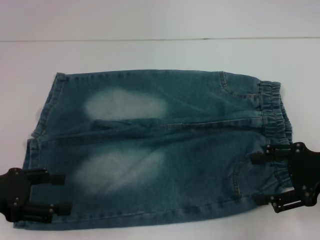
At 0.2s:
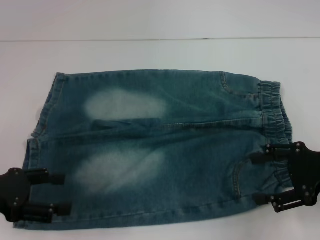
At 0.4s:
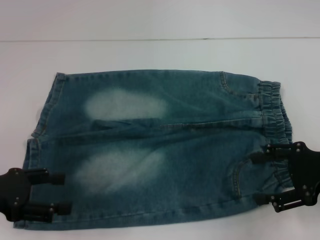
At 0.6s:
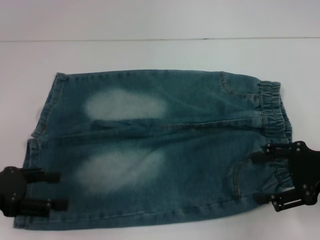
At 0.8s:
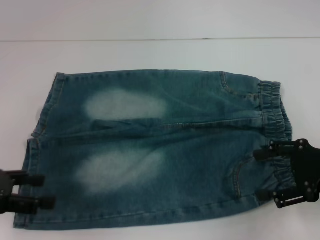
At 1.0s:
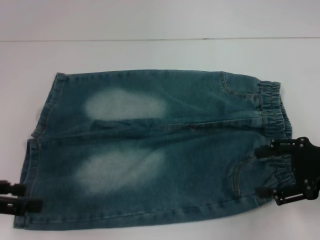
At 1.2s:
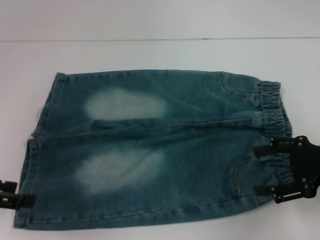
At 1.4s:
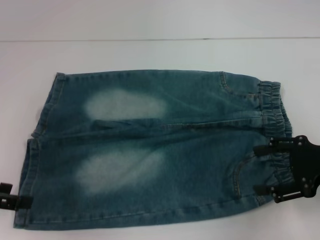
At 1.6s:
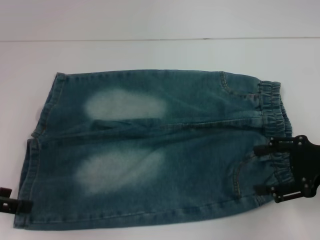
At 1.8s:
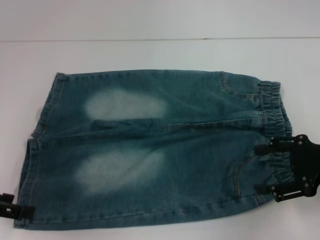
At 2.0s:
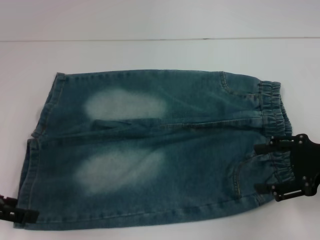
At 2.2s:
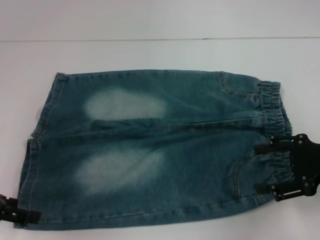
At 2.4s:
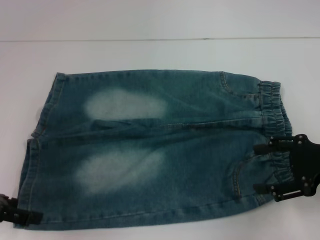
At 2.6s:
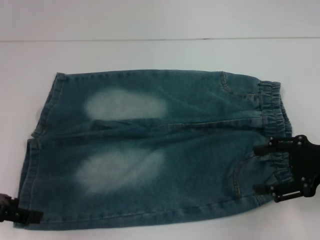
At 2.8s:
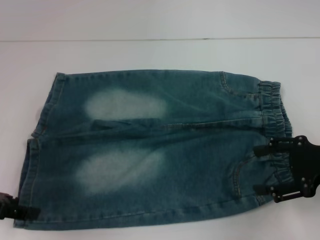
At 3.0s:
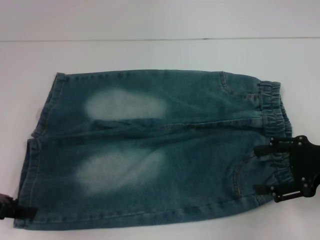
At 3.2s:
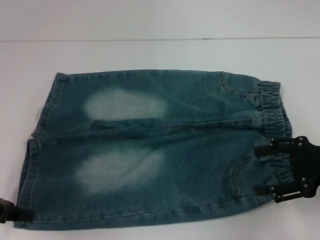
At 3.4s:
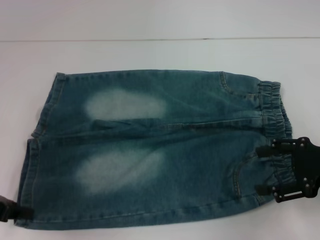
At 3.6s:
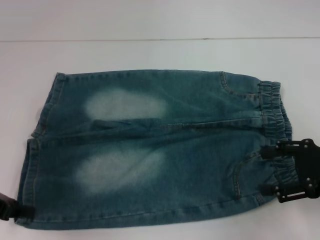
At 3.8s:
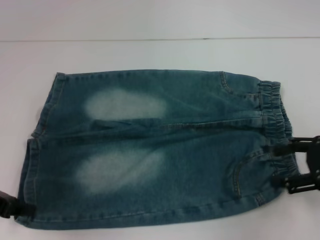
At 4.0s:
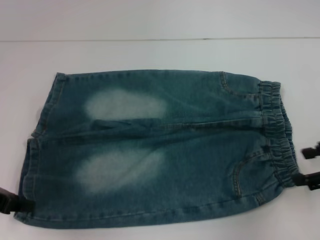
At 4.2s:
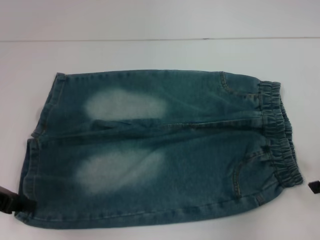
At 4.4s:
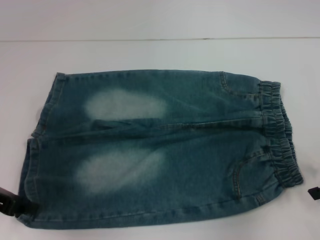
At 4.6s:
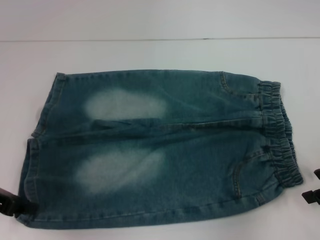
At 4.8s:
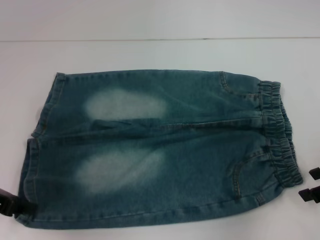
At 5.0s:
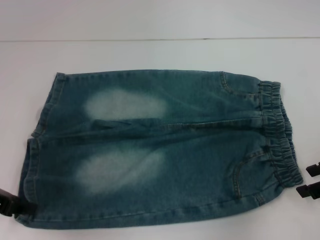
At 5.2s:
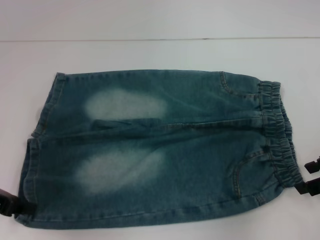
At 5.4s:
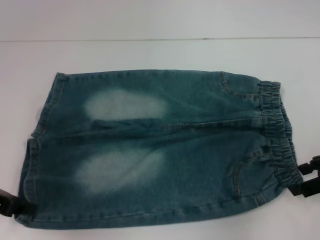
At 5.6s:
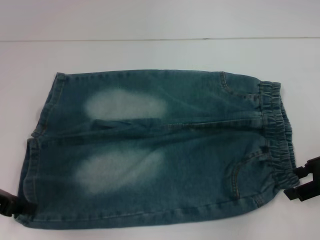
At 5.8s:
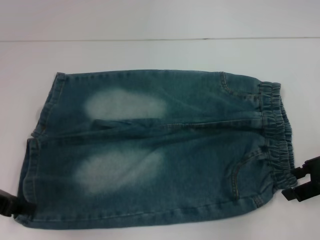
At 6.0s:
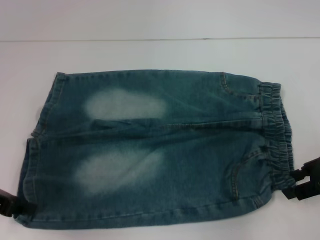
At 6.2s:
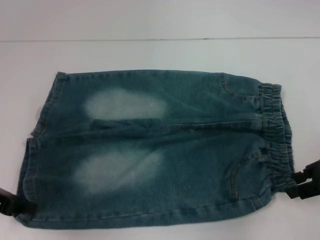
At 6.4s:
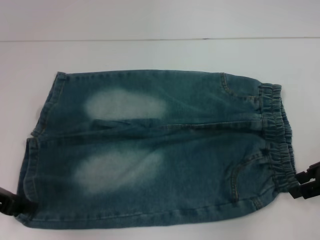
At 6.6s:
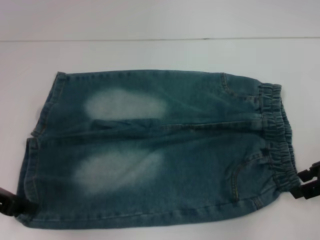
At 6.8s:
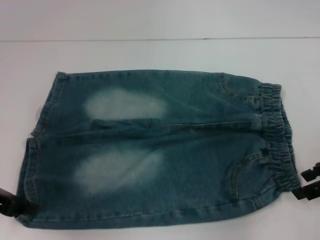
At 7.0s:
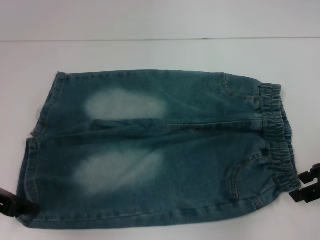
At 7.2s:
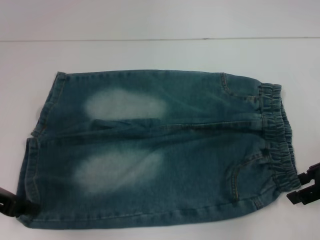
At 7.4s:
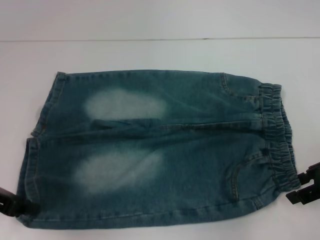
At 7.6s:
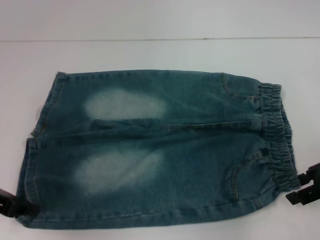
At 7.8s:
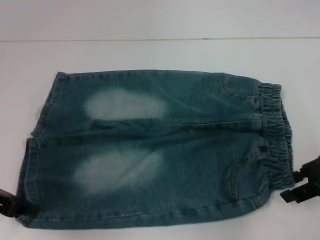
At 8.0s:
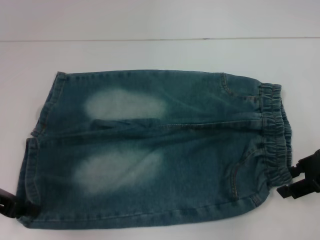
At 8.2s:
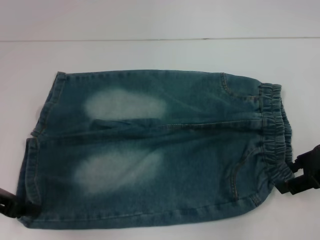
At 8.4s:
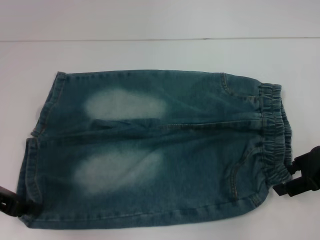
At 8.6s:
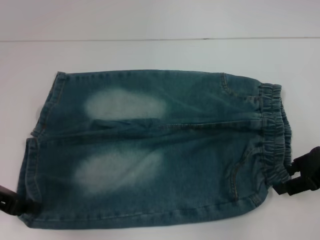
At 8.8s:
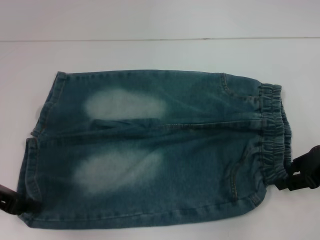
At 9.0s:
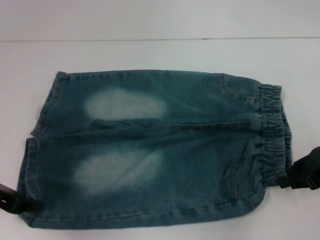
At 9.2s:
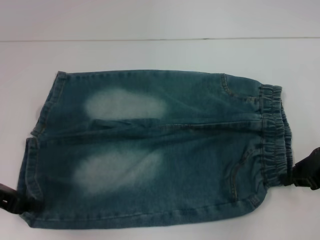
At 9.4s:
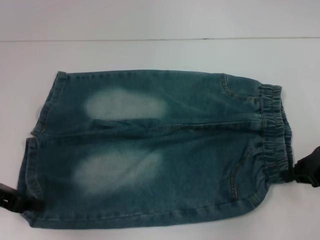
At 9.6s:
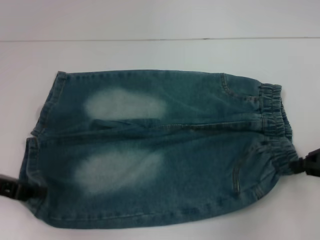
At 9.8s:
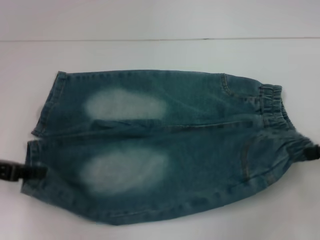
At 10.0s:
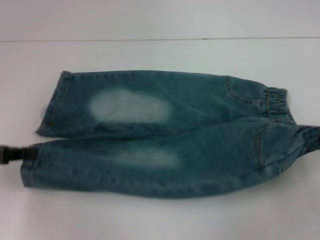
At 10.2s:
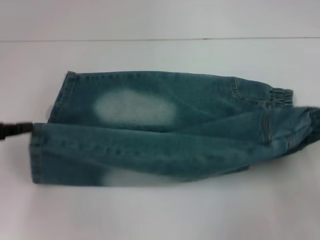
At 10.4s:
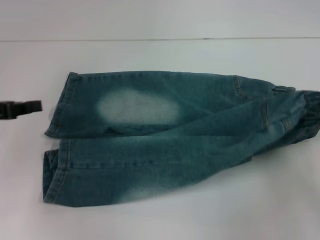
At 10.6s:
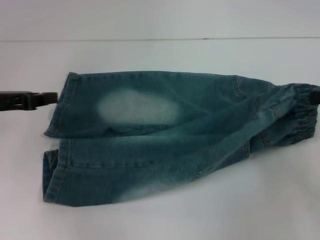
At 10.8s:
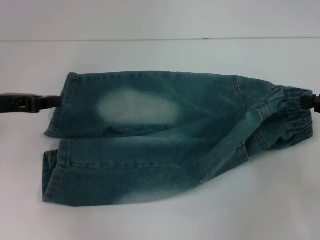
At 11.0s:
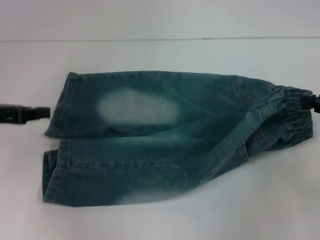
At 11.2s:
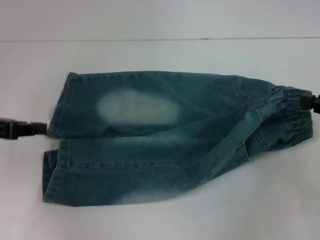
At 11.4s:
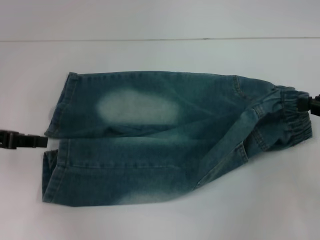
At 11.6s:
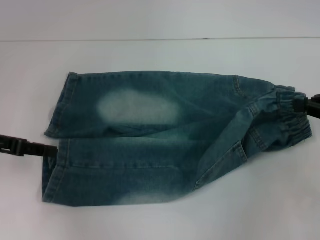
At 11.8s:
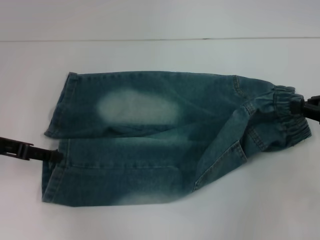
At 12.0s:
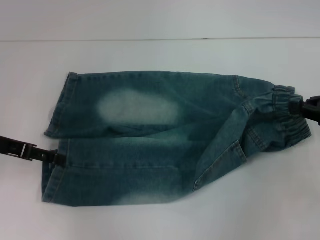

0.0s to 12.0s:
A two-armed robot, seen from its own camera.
Step, 0.0s to 9.2s: Grab the lower left pant leg with your left hand.
3.0s to 4.4s: The left gripper closes its fingers.
4.4s to 6.0s: The grippers stay close to where they were, moving slightly.
6.0s to 7.6s: The two grippers keep their place.
7.6s to 9.0s: The grippers make only small movements.
9.0s to 10.4s: The right gripper goes about 5 cm to the right, and closes its fingers; the left gripper shifts by about 5 cm.
10.4s to 12.0s: The left gripper opens up.

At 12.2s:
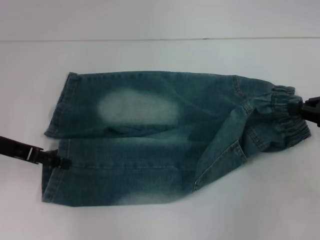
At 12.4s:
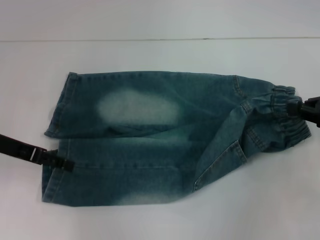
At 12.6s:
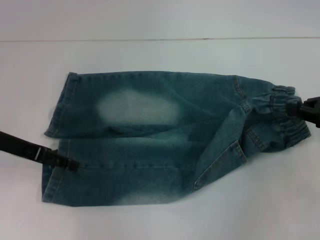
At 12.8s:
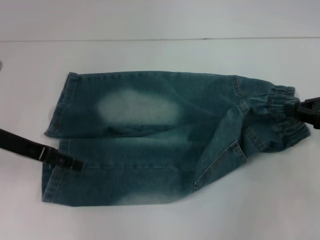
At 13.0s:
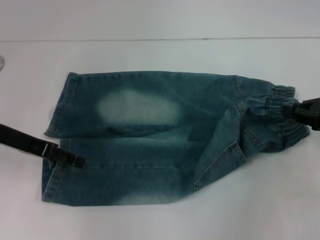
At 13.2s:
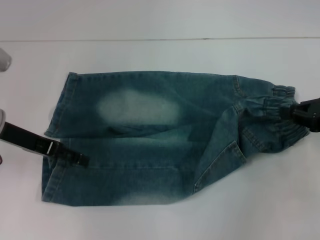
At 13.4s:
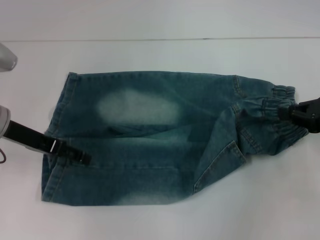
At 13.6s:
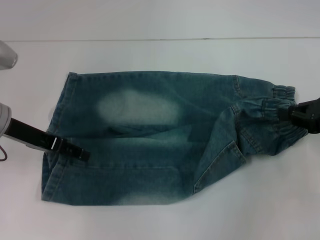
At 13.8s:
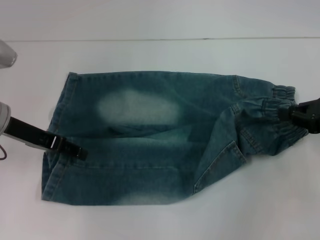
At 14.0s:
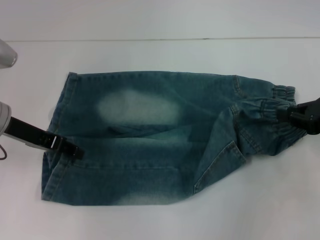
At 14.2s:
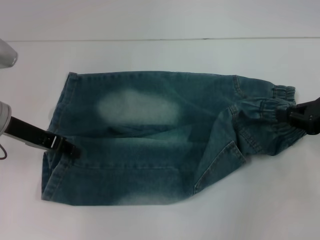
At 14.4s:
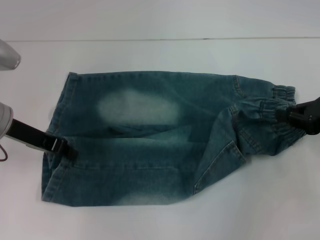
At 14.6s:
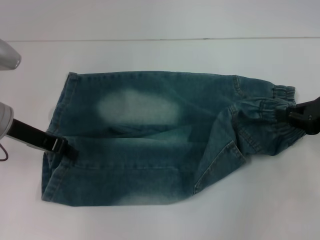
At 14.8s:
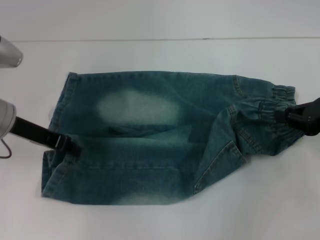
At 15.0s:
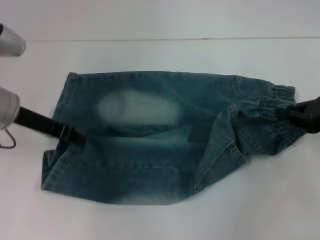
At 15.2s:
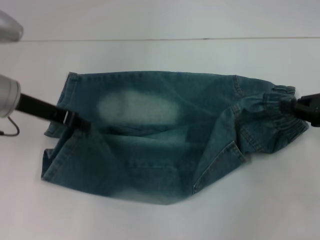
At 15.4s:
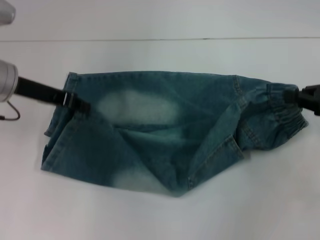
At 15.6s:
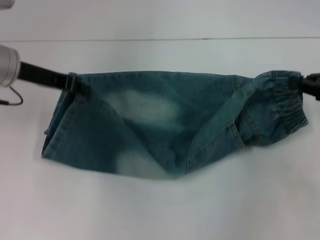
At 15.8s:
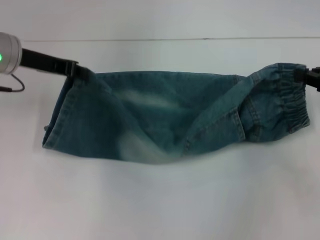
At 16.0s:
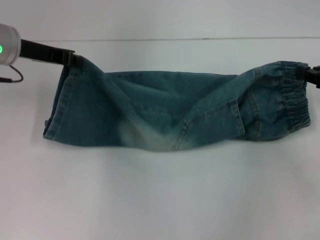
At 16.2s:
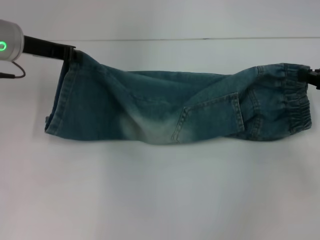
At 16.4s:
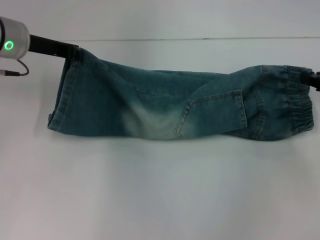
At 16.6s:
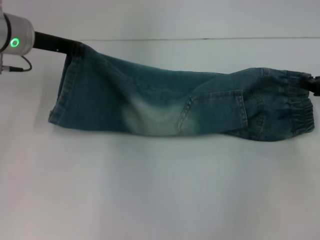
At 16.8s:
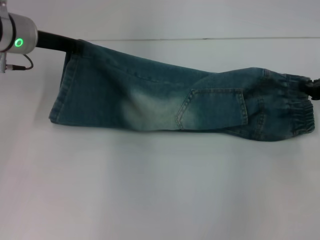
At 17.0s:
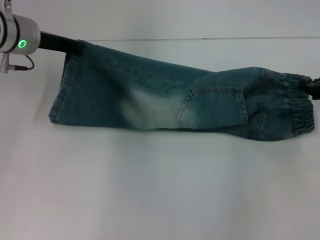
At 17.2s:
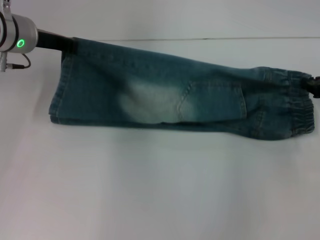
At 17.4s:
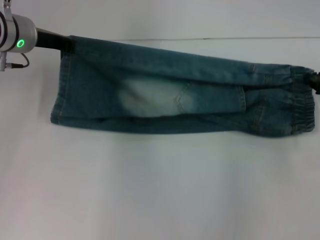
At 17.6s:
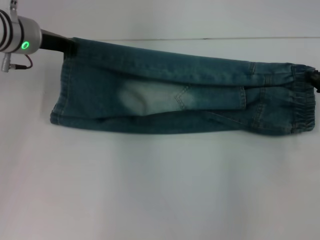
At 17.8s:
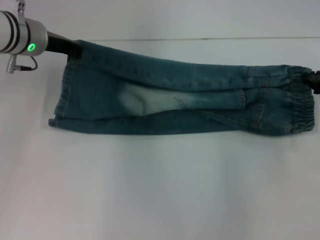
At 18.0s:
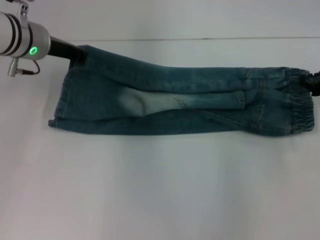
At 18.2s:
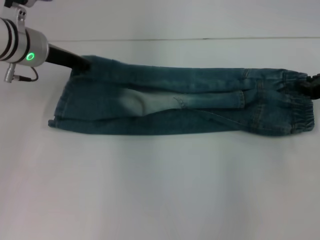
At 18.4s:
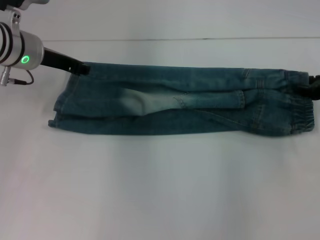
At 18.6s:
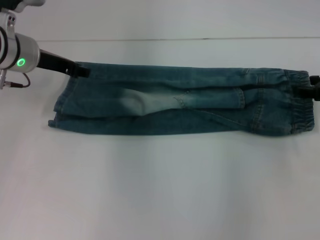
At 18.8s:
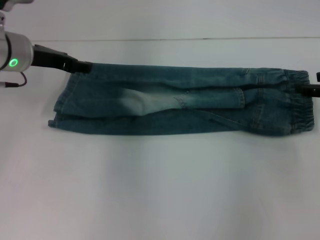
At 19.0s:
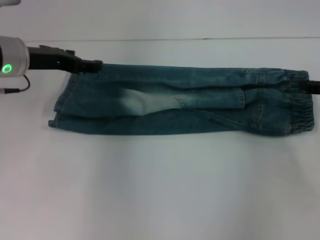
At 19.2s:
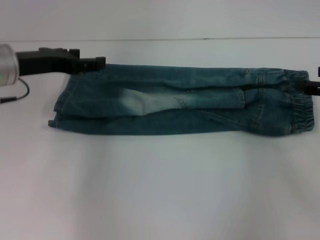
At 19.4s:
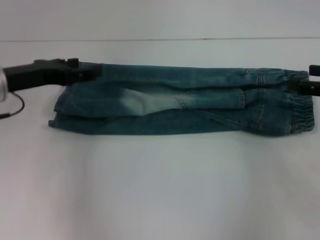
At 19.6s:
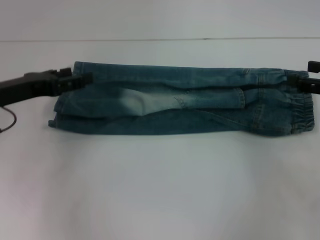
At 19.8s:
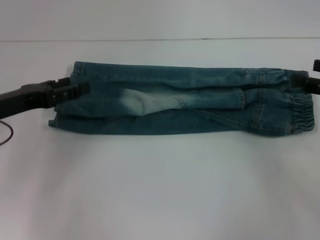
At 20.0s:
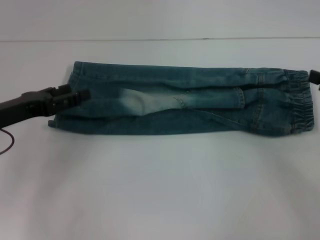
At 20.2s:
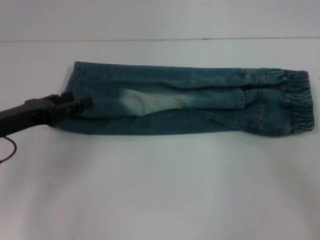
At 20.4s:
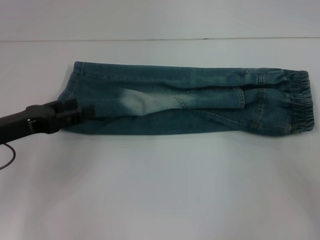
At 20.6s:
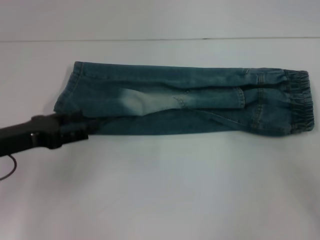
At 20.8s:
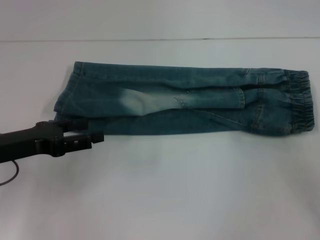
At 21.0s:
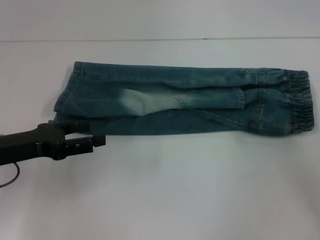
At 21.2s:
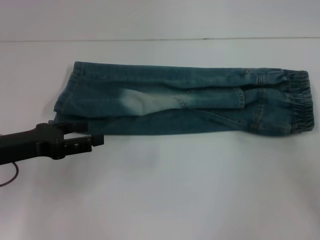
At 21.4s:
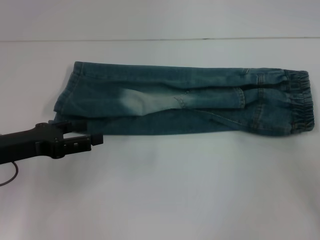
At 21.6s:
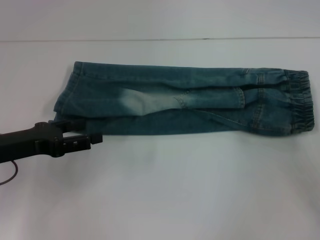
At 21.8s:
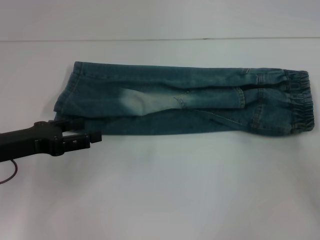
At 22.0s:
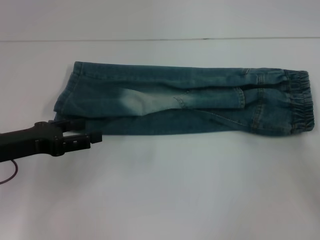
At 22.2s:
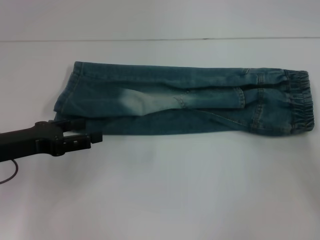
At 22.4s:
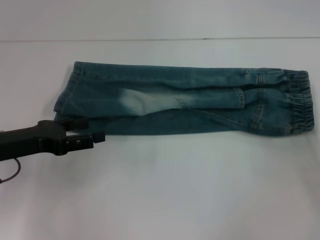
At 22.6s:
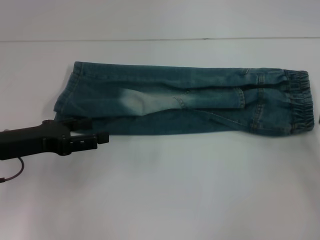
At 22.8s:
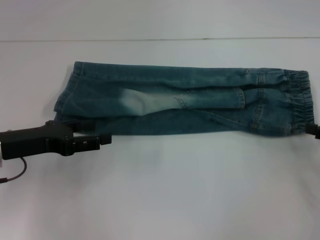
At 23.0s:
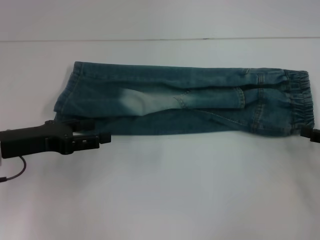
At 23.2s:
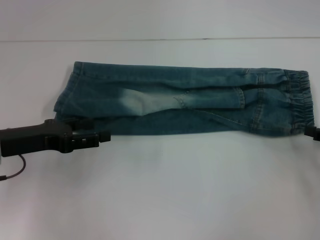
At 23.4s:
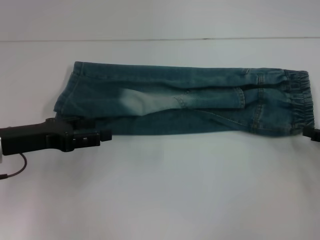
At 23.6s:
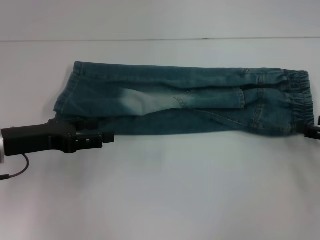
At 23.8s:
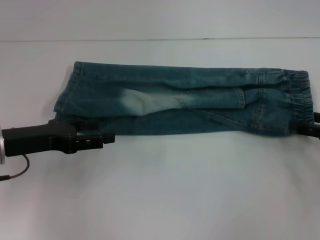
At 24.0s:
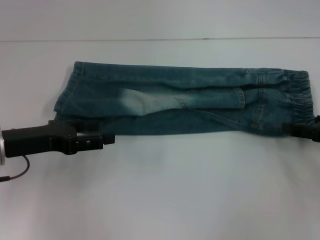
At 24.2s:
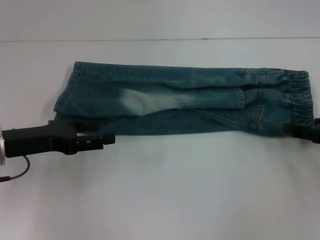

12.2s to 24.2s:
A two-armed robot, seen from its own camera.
Step, 12.2s to 18.2s: Fold upward with your left hand.
12.2s to 13.8s: The grippers make only small movements.
13.8s to 15.2s: The left gripper closes up.
15.2s to 16.6s: The grippers both shift forward by roughly 5 cm.
16.6s to 18.2s: There are only small adjustments of the grippers.
18.2s to 19.8s: The left gripper moves backward and to the left, about 15 cm, and opens its fingers; the right gripper goes roughly 5 cm backward, and opens its fingers.
21.2s to 22.6s: The grippers move only a little.
22.6s to 24.2s: The right gripper shifts by roughly 5 cm.
